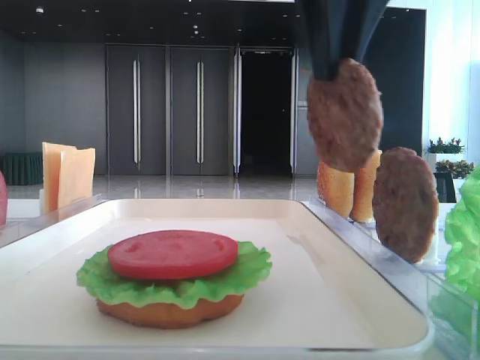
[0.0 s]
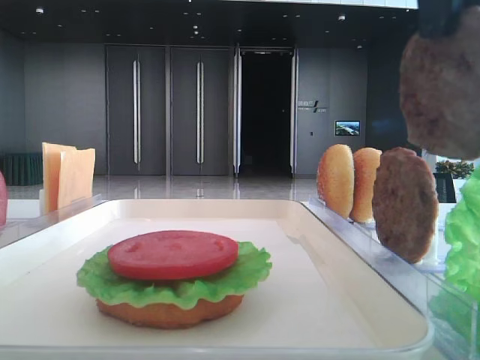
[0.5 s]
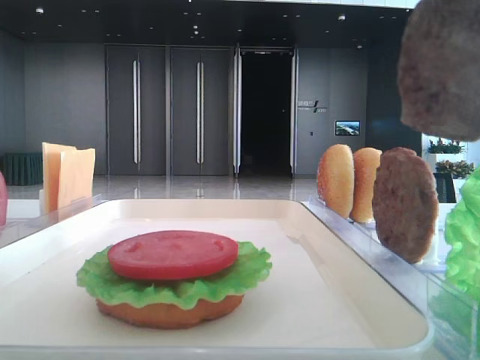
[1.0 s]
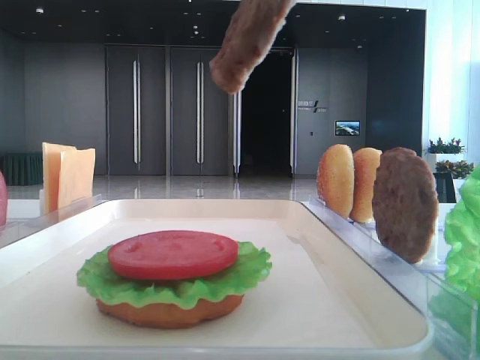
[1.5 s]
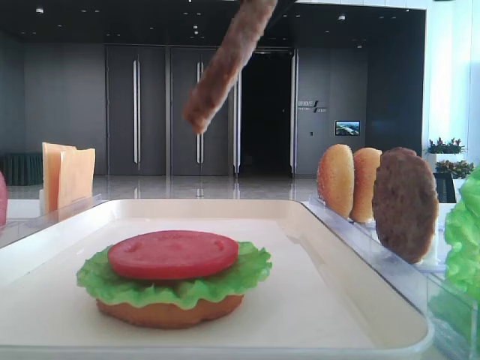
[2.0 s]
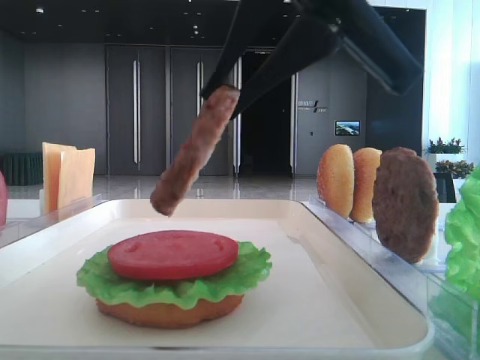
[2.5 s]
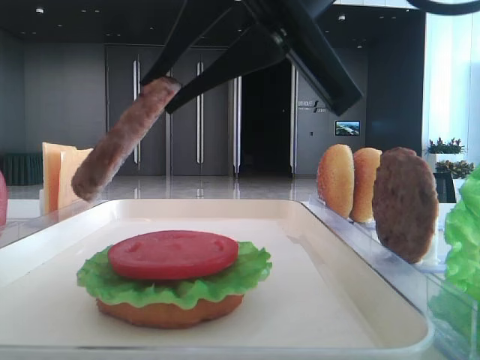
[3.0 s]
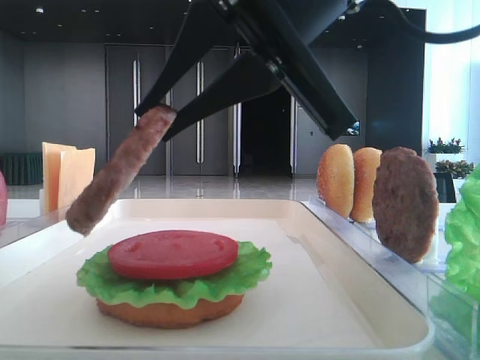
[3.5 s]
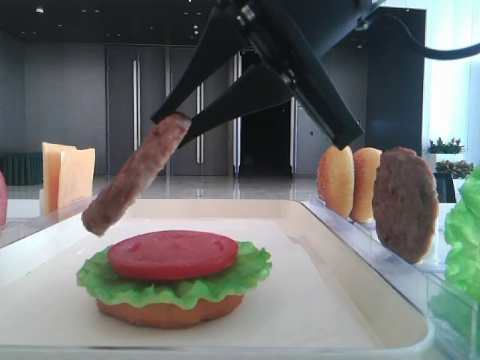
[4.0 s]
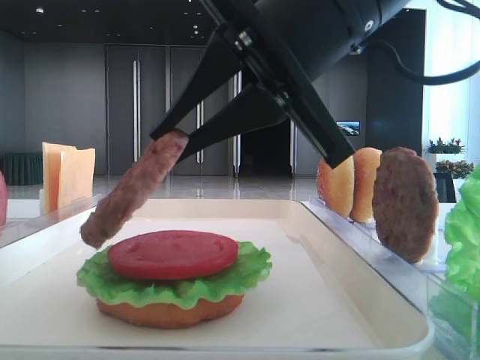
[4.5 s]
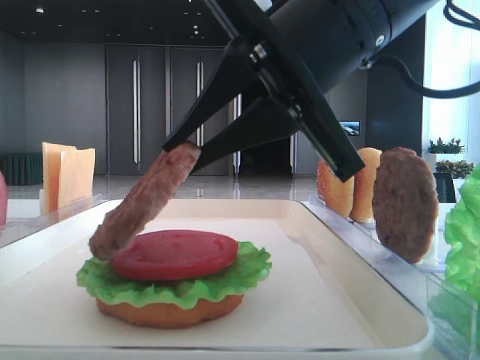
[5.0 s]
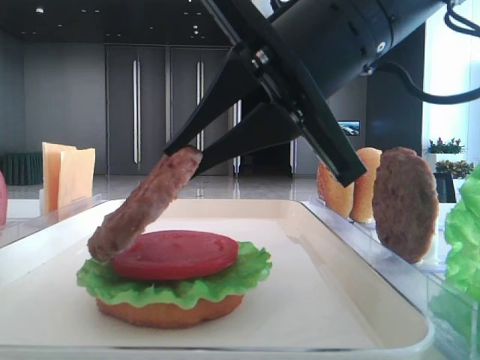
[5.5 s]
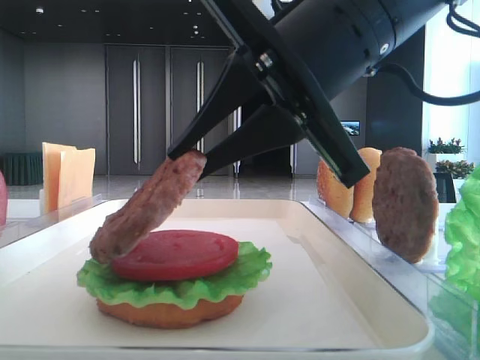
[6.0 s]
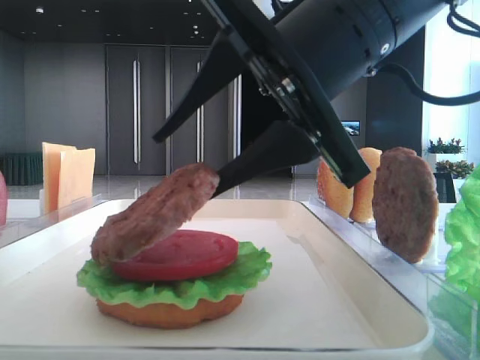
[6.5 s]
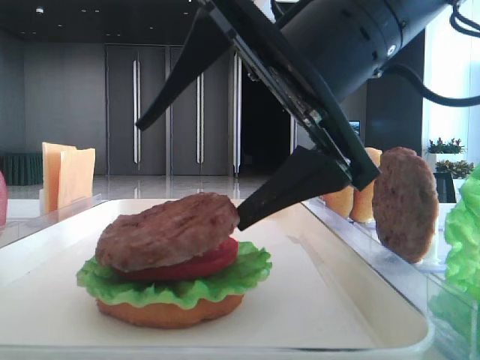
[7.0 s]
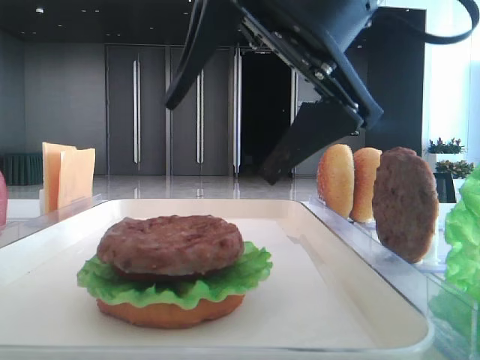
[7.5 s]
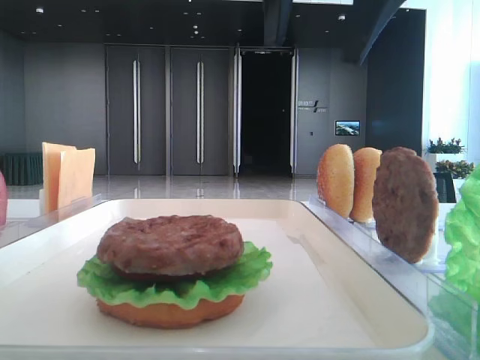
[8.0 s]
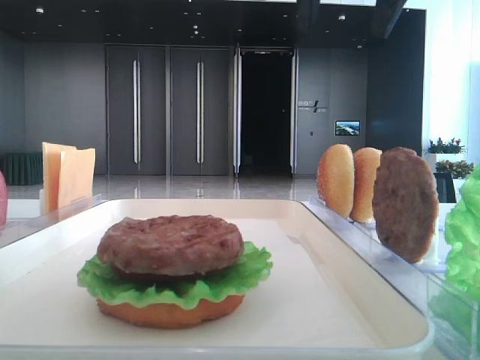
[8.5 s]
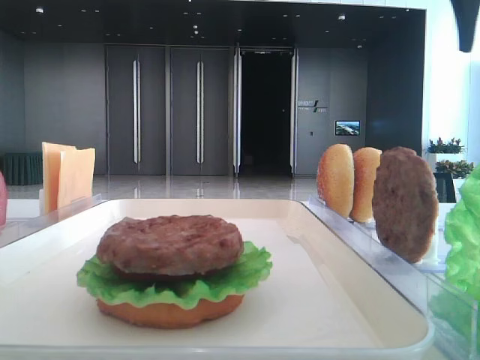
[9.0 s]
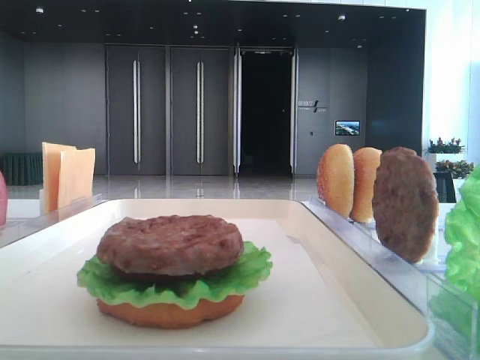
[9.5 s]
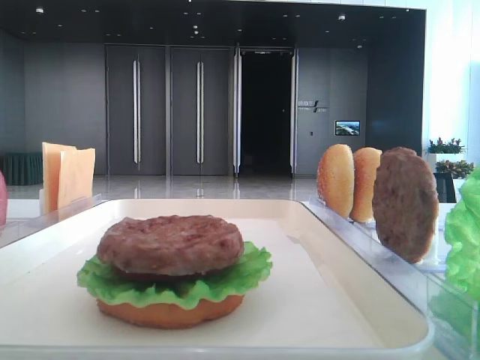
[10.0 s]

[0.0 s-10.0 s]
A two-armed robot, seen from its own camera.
Step, 0.0 to 7.0 s: Place the patty on the tomato slice with the right hand.
0.0 to 2.0 s: The right gripper shifts roughly 10 cm backward.
2.0 to 4.0 s: The right gripper shifts about 5 cm downward.
4.0 to 6.0 s: The grippers make only small movements.
6.0 to 8.0 s: The right gripper moves upward and forward, approximately 15 cm, and opens its fingers.

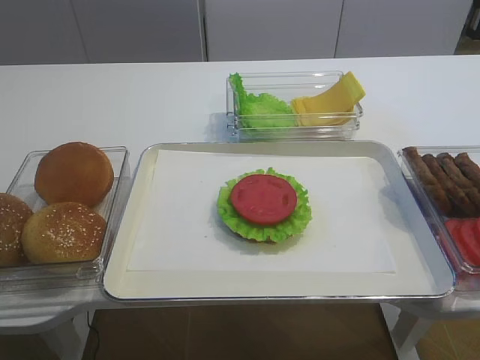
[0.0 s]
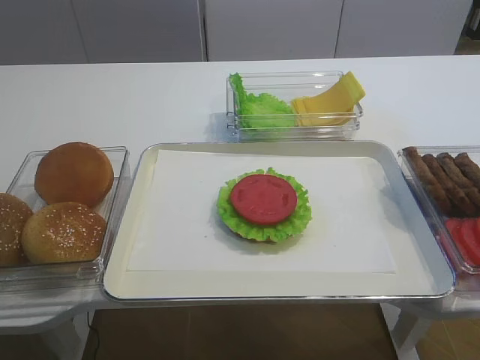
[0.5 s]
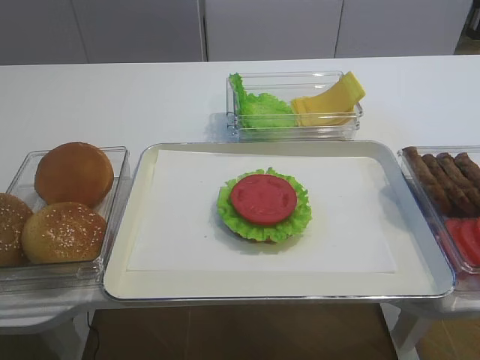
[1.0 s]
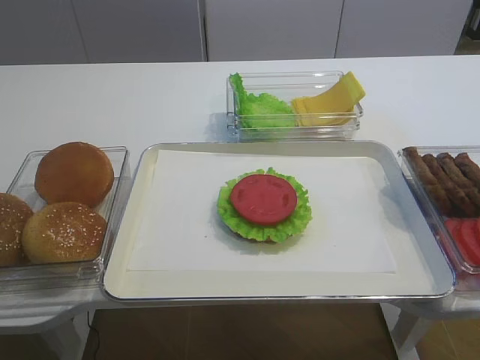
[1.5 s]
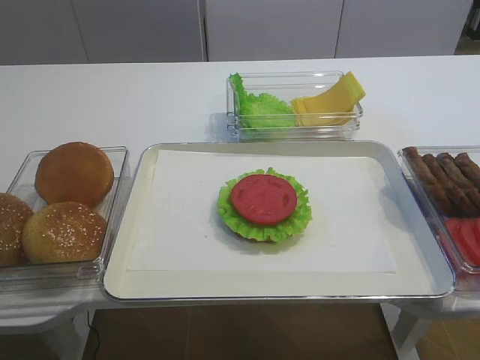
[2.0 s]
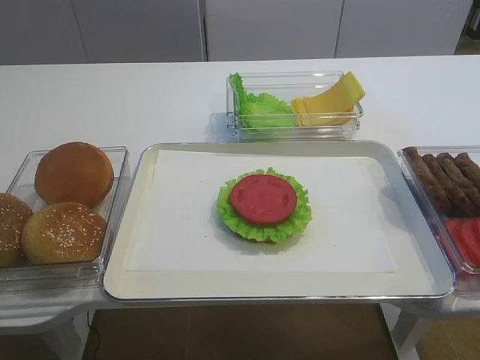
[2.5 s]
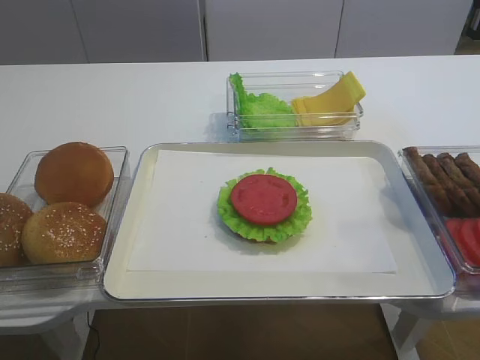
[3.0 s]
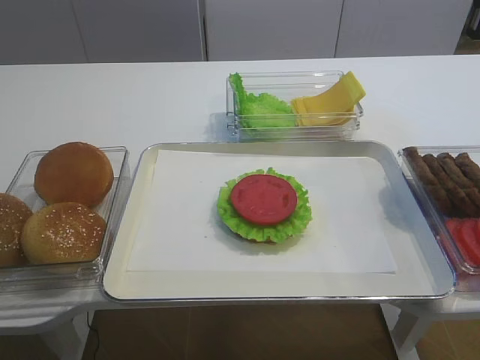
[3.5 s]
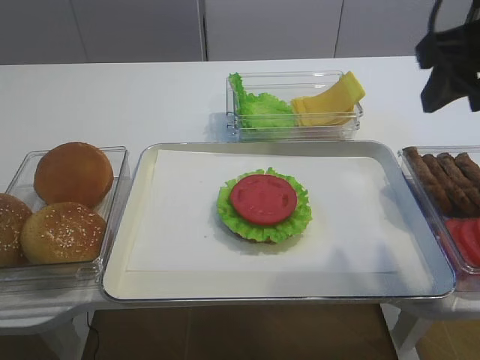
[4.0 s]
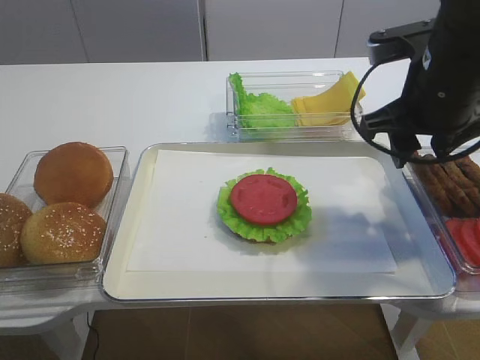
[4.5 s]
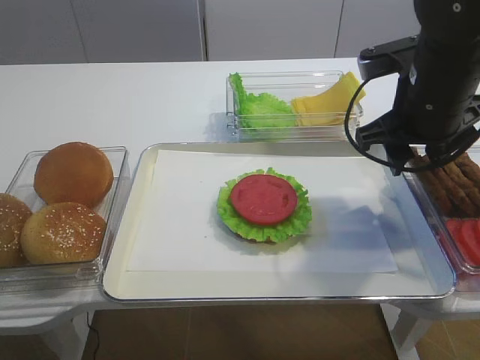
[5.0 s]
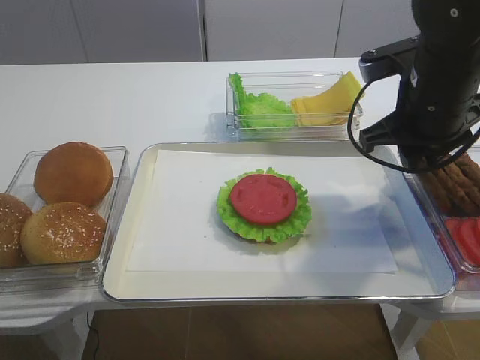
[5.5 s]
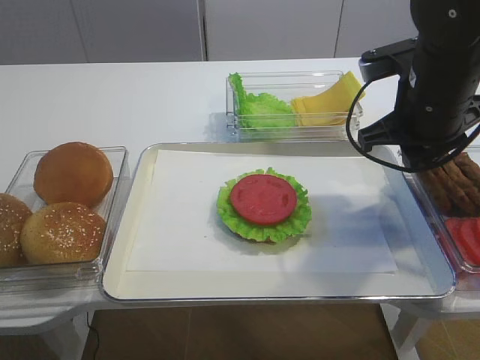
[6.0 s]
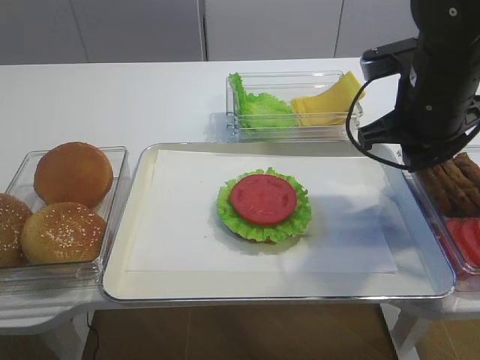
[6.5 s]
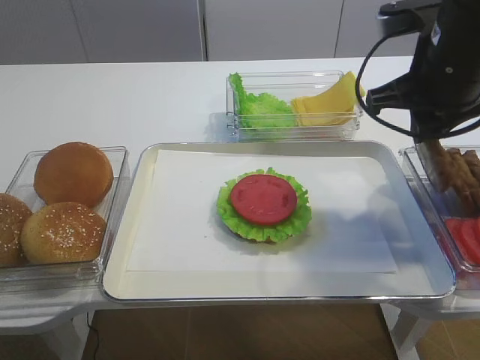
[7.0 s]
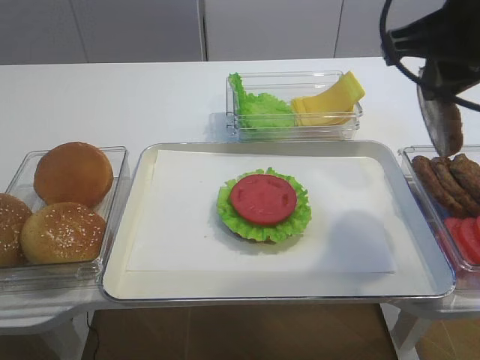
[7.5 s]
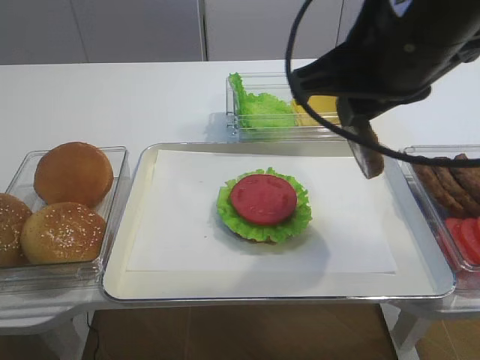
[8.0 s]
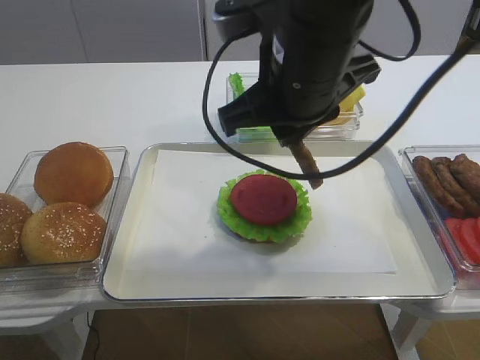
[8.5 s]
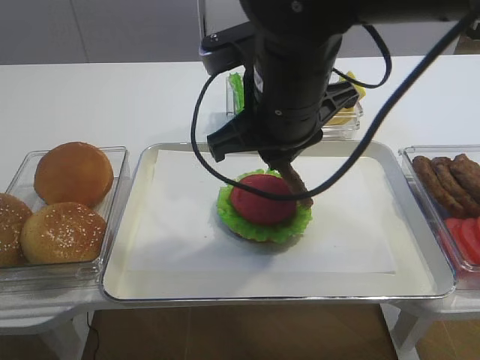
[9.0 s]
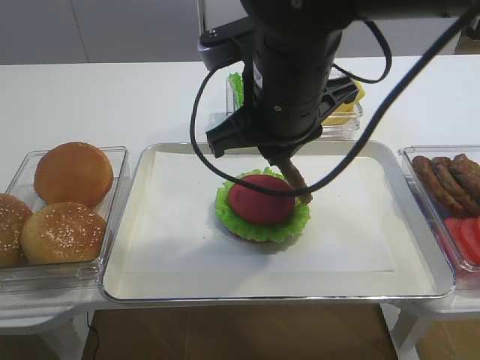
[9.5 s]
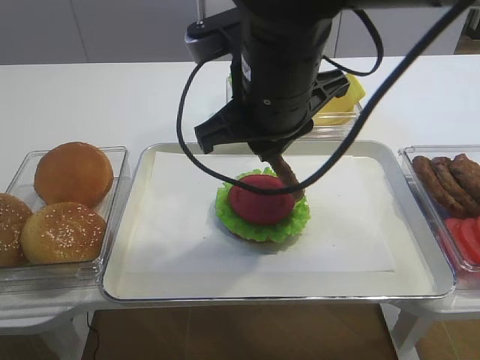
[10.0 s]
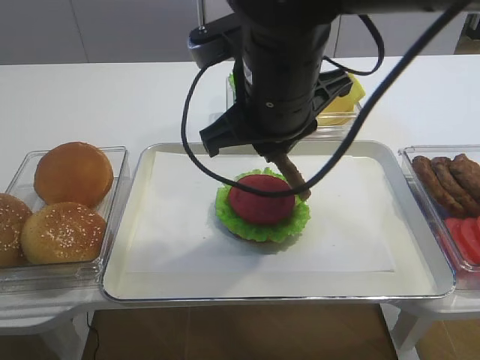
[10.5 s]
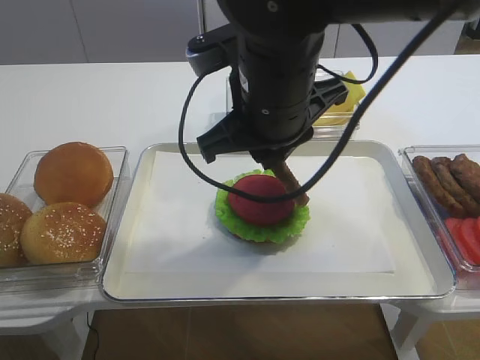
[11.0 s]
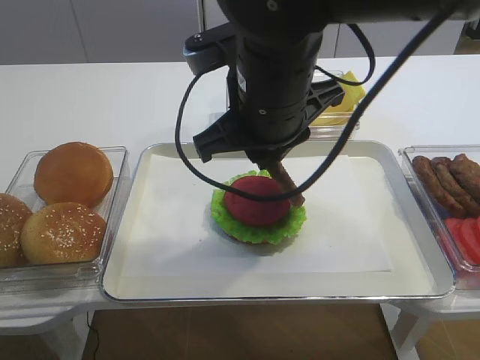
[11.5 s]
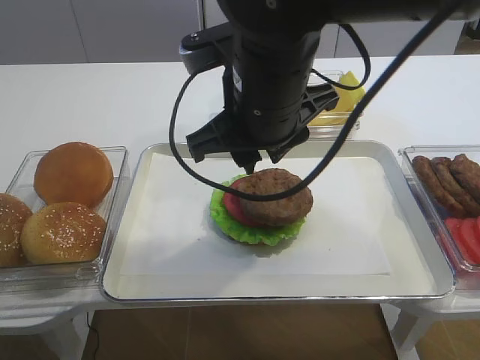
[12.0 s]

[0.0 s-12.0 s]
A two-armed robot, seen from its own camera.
Step, 0.0 to 6.5 s: Pick up the cutlet with the right gripper.
2.0 to 4.0 s: The right gripper shifts approximately 25 cm forward.
4.0 to 6.0 s: The right gripper is displaced downward and forward by approximately 10 cm, and closes up.
6.0 to 8.0 s: The right gripper heads upward, backward and to the left, covering approximately 15 cm.
8.0 to 10.0 s: The right gripper is displaced to the left by roughly 10 cm.
10.0 to 12.0 s: The right gripper opens up.

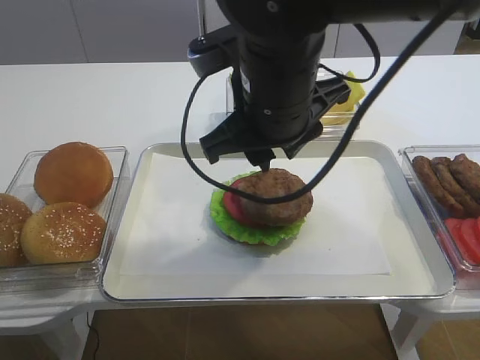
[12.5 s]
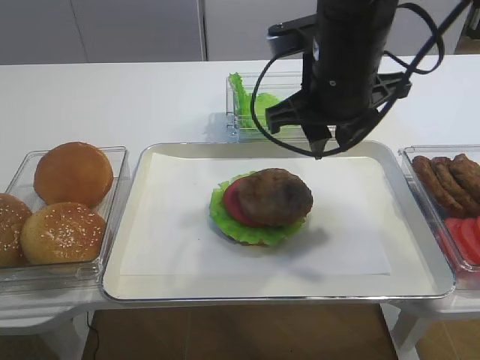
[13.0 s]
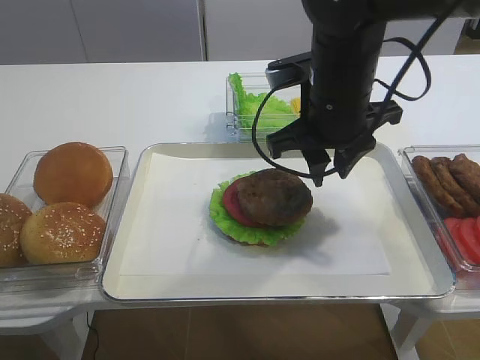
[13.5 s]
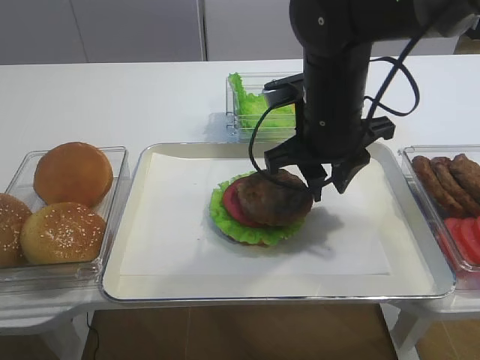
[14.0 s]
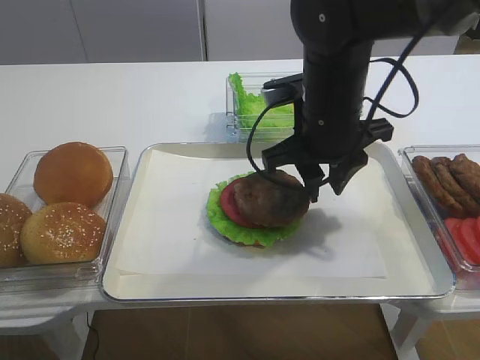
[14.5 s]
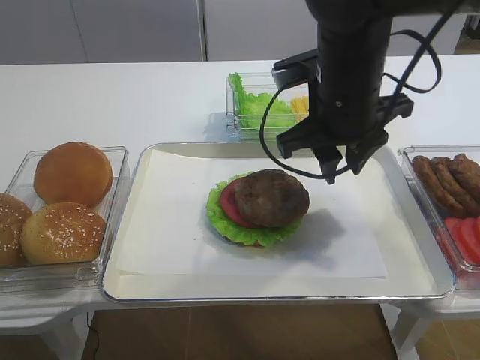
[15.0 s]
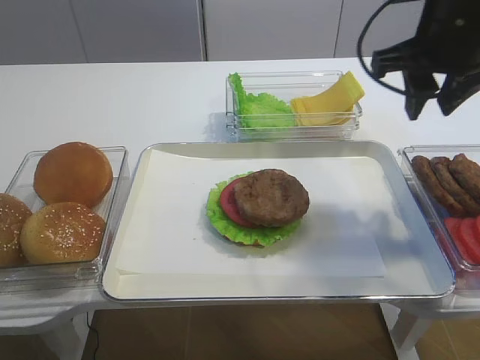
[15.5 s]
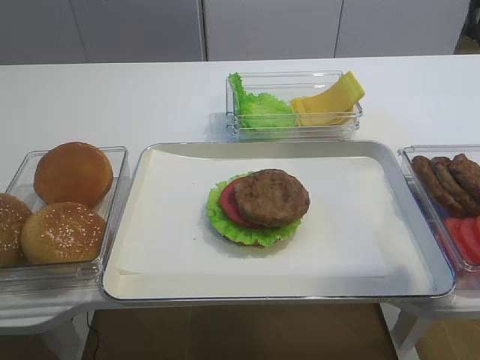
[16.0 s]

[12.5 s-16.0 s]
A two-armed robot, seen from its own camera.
12.5 to 14.5 s: The right gripper heads forward, to the right and downward, covering approximately 10 cm.
14.5 to 16.0 s: The right gripper travels to the right, upward and backward by approximately 20 cm.
